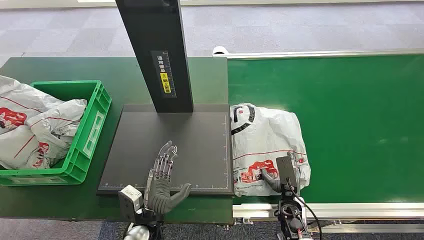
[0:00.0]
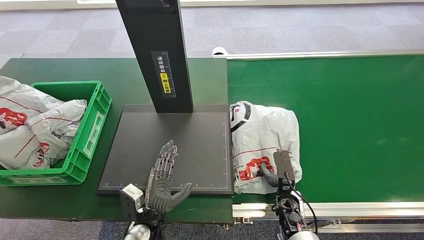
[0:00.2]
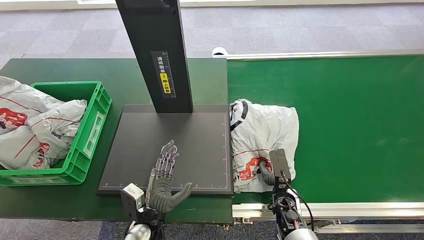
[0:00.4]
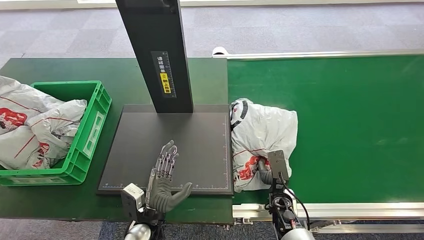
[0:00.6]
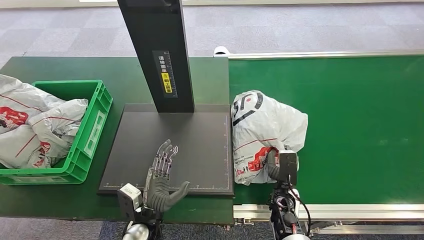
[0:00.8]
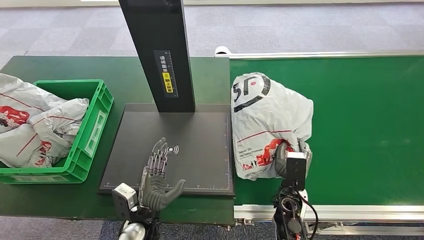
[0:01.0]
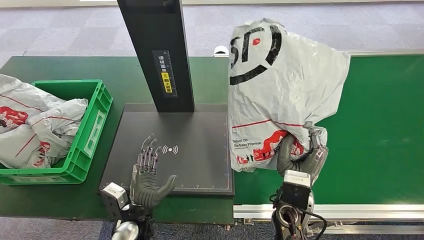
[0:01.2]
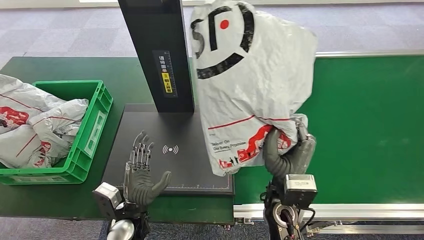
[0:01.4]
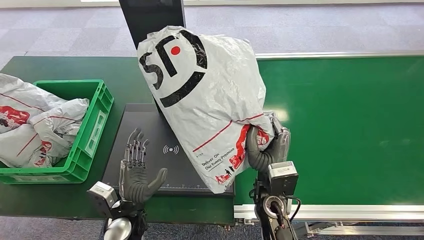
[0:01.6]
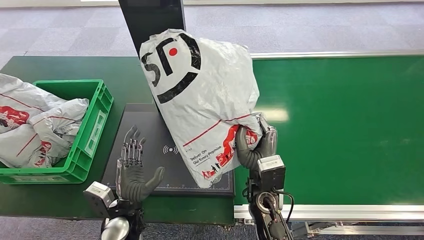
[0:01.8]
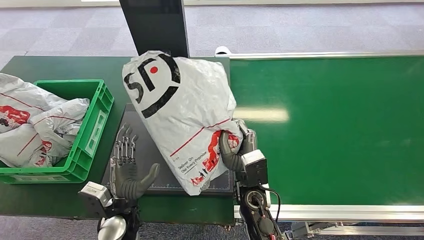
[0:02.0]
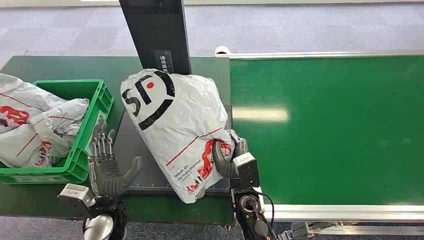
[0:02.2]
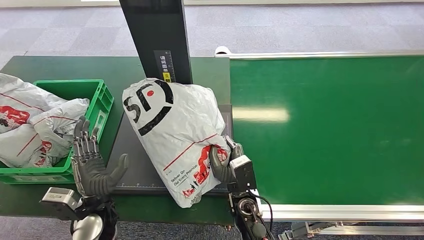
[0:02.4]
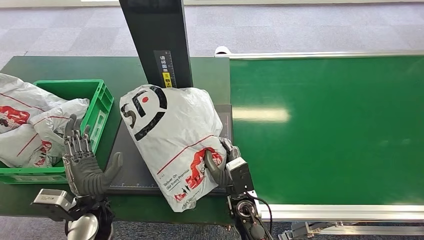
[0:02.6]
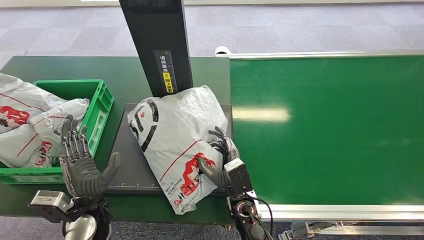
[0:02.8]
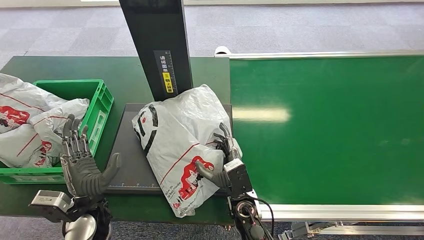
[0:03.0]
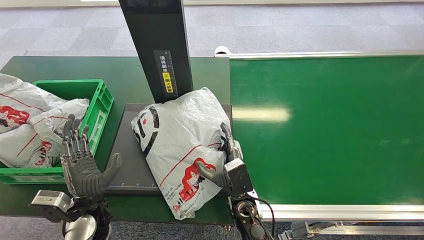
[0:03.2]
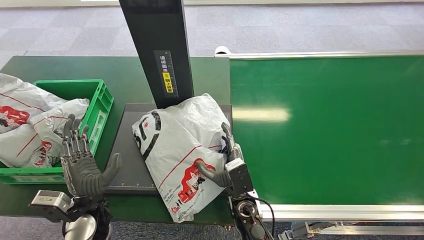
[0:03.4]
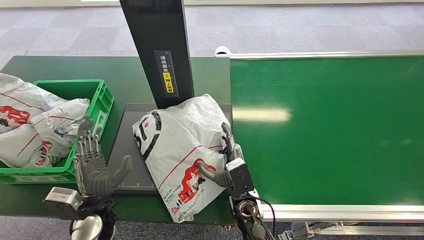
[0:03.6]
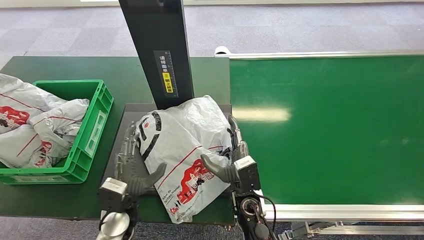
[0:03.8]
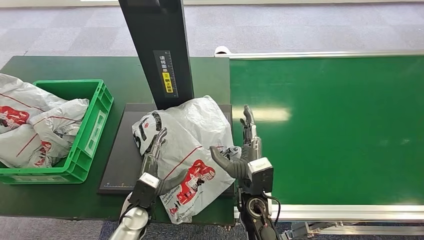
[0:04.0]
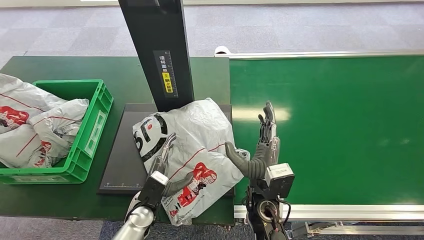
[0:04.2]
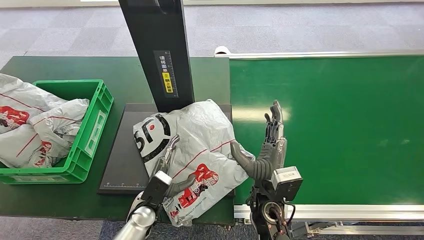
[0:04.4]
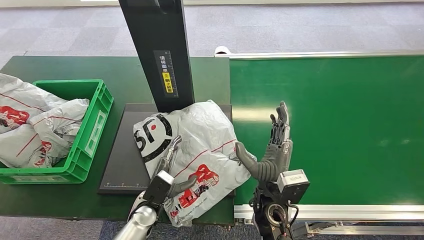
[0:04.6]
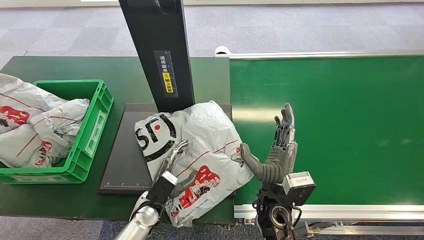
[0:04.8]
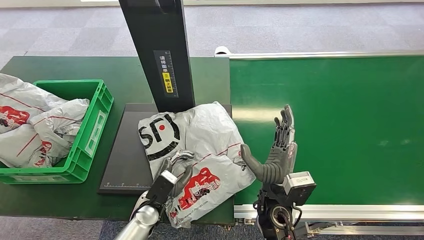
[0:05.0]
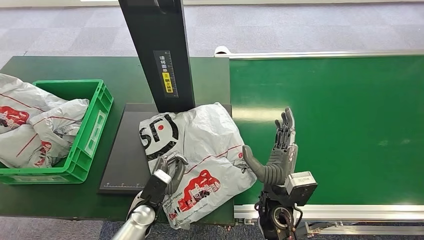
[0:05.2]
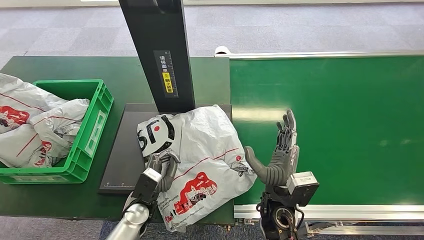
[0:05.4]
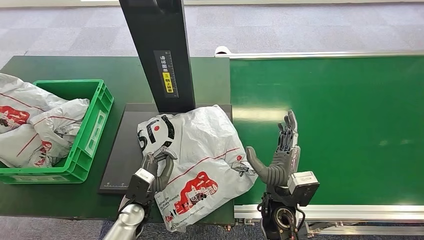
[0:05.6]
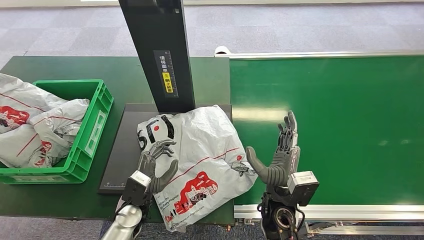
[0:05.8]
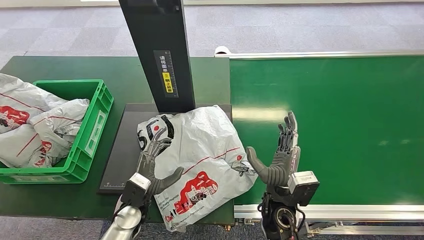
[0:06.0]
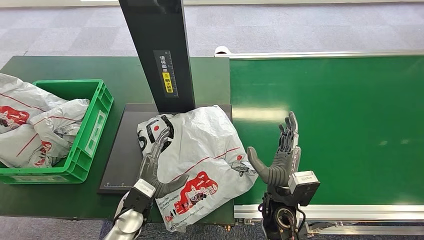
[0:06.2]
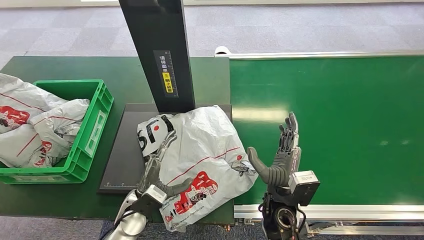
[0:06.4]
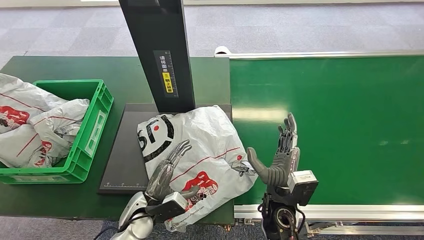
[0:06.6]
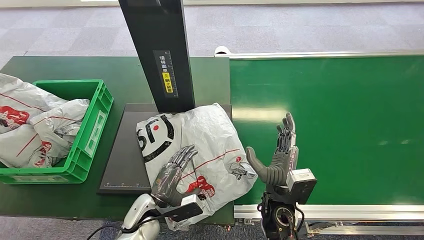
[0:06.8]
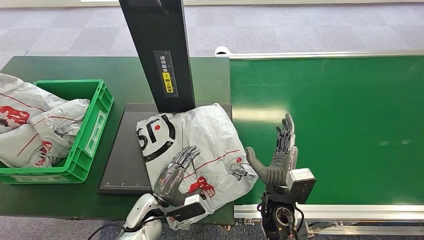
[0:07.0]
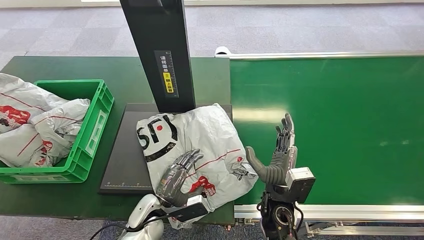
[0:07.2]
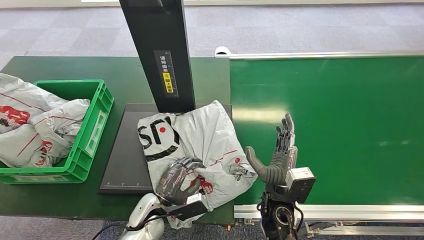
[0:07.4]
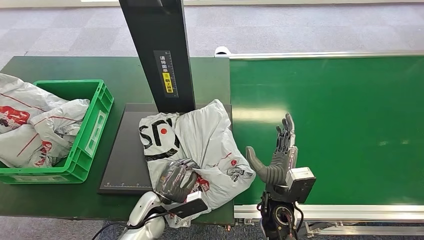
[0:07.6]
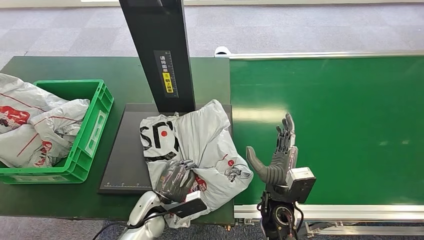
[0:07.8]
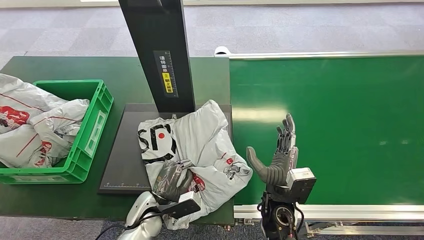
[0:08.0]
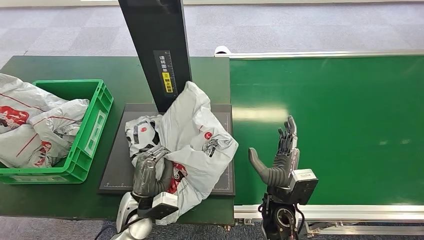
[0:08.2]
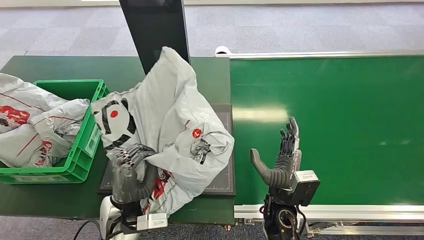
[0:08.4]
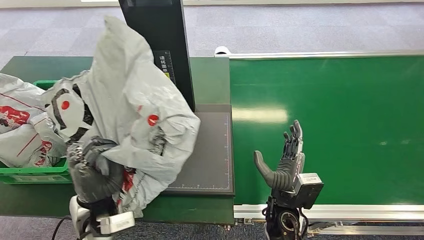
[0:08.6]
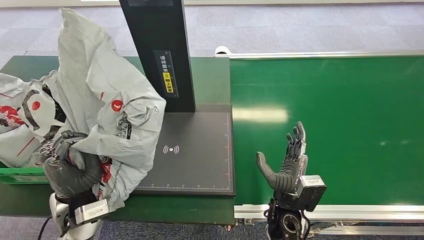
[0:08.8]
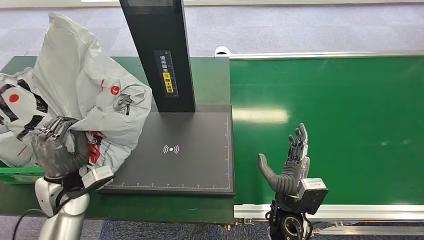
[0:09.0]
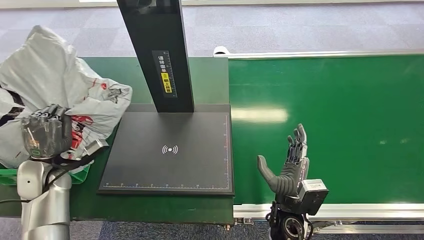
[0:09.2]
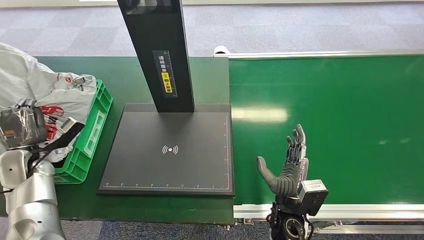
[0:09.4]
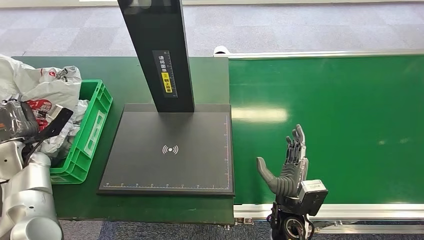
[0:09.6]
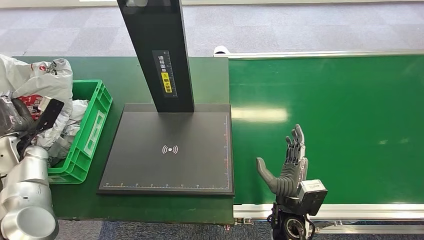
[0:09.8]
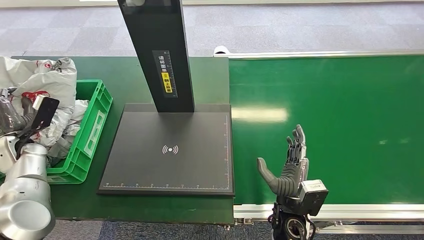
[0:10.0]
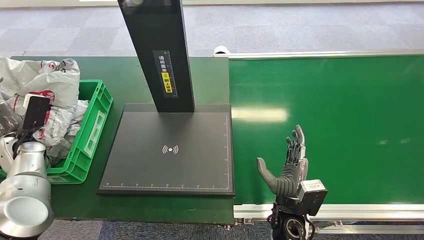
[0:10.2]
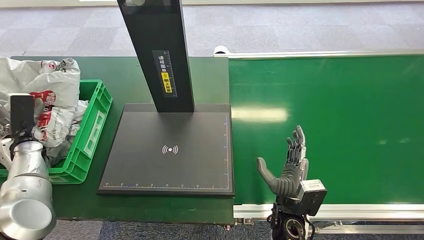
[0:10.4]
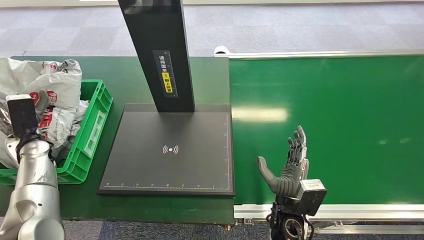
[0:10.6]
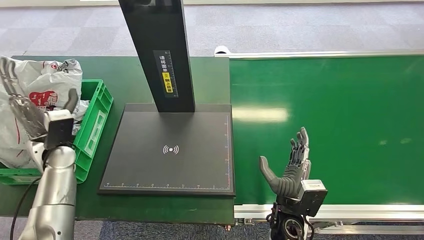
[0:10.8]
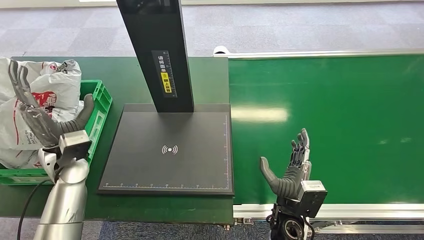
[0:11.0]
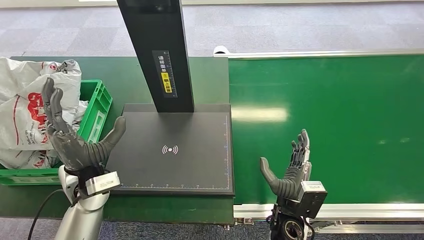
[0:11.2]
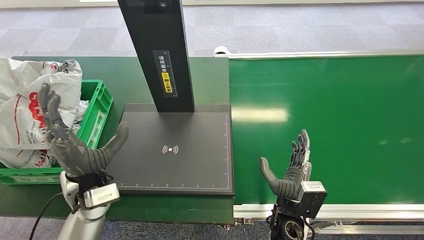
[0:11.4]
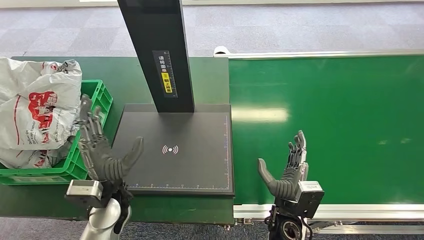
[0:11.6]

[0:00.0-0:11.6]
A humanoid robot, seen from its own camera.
Step, 0:00.0 to 0:01.2: Pick up the package from the conveyor belt.
Step, 0:01.4 to 0:04.4: Place the package onto the inbound machine.
Step, 0:04.6 to 0:09.2: Pick up the package from the inbound machine.
Step, 0:09.6 to 0:11.6: Place the package into the parcel locker.
0:02.8 to 0:04.4: The left hand goes some 15 cm downward and to the right. The right hand moves upward, roughly 5 cm.
0:04.4 to 0:05.8: The hands make only small movements.
0:10.2 to 0:11.6: The left hand heads to the right, covering approximately 30 cm.
